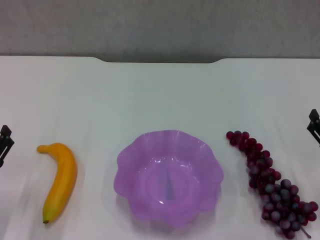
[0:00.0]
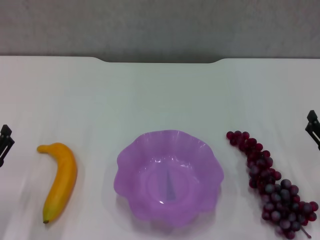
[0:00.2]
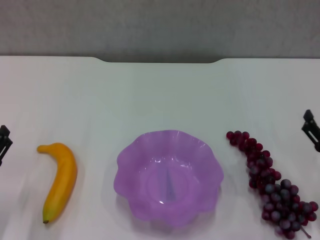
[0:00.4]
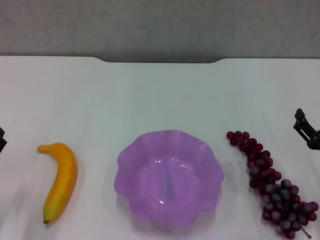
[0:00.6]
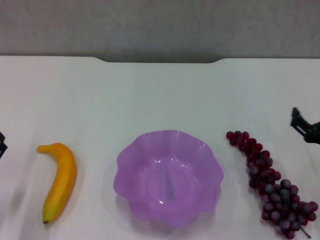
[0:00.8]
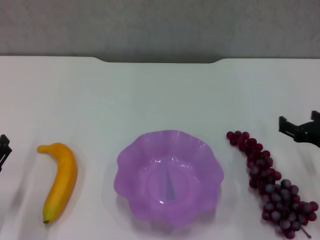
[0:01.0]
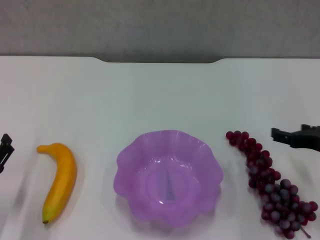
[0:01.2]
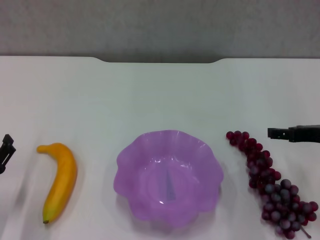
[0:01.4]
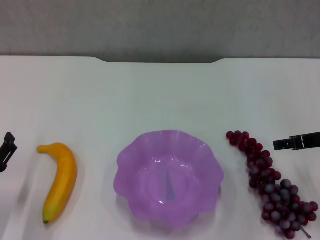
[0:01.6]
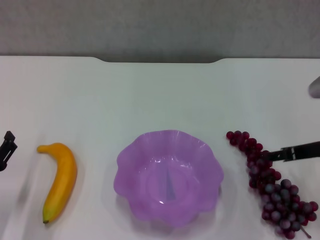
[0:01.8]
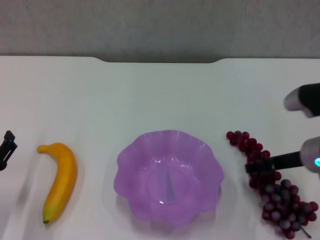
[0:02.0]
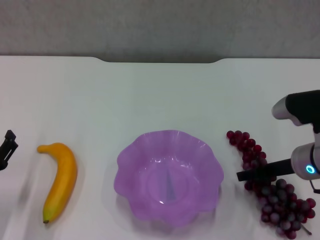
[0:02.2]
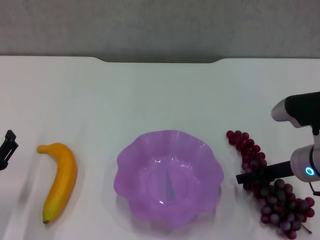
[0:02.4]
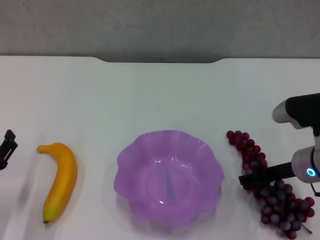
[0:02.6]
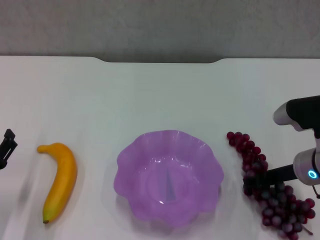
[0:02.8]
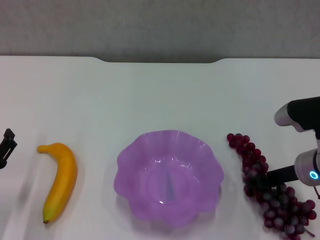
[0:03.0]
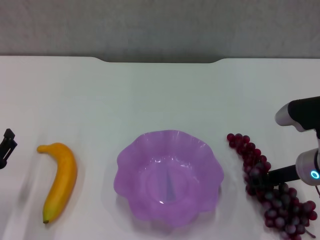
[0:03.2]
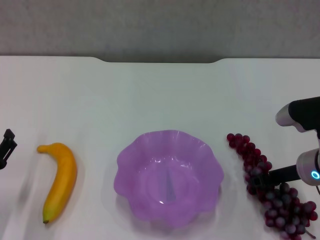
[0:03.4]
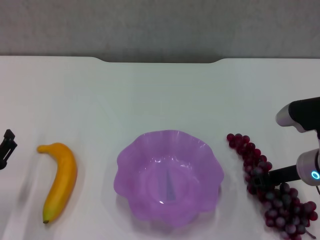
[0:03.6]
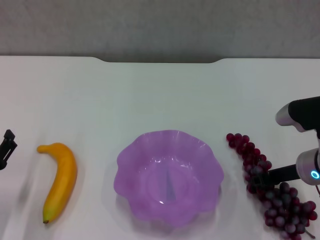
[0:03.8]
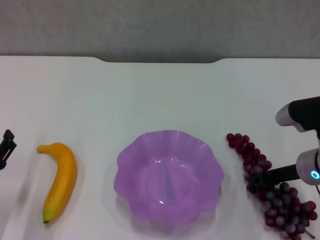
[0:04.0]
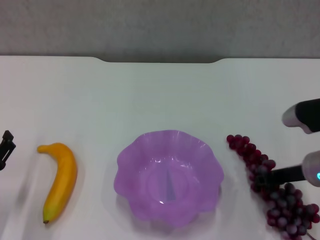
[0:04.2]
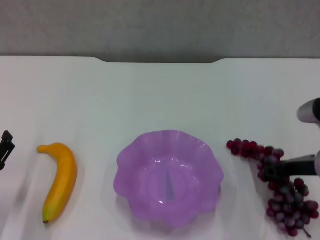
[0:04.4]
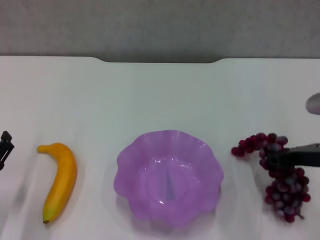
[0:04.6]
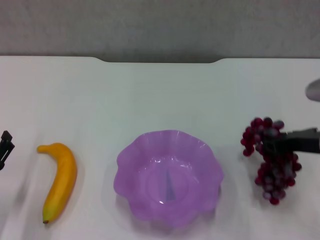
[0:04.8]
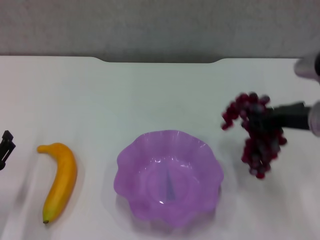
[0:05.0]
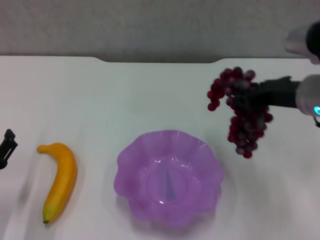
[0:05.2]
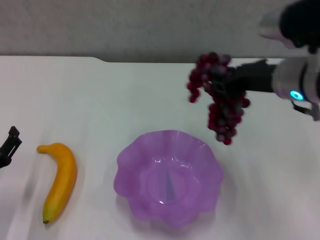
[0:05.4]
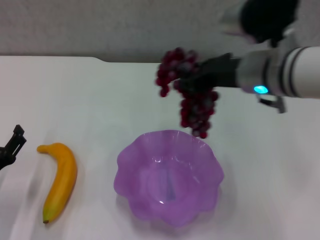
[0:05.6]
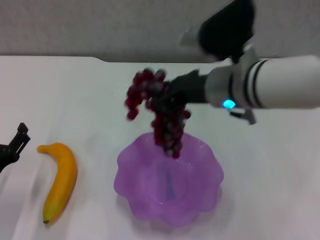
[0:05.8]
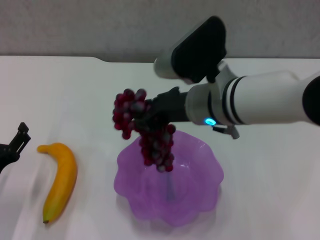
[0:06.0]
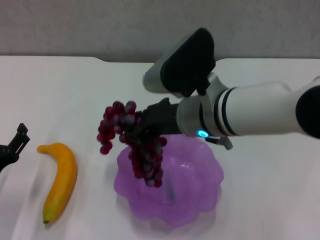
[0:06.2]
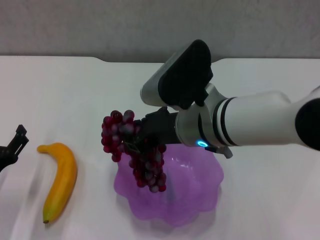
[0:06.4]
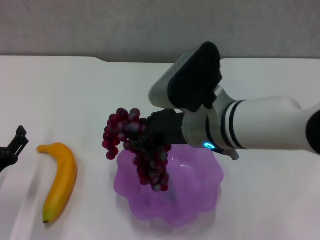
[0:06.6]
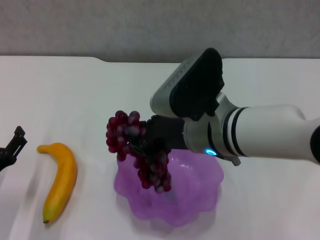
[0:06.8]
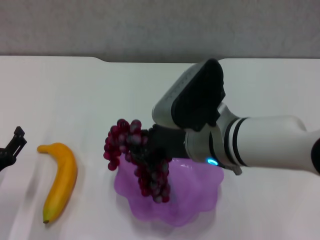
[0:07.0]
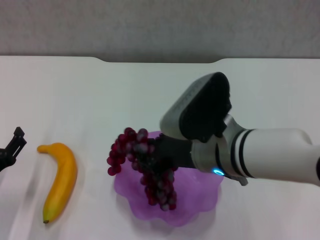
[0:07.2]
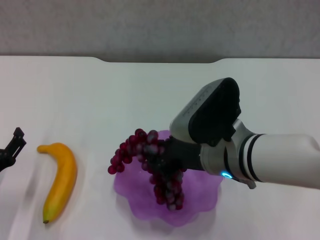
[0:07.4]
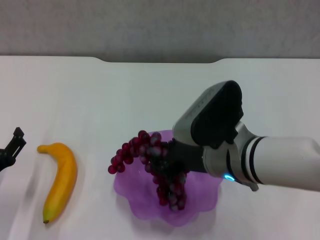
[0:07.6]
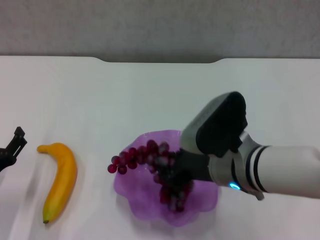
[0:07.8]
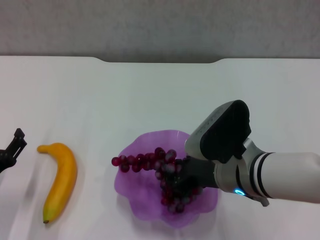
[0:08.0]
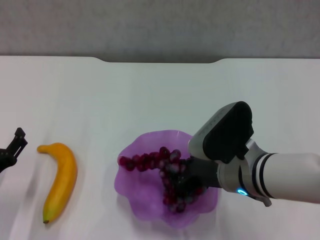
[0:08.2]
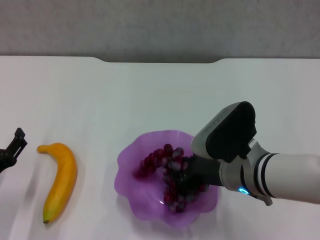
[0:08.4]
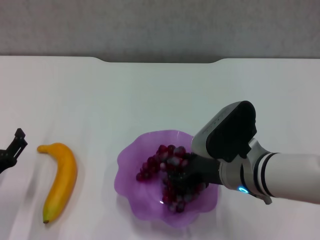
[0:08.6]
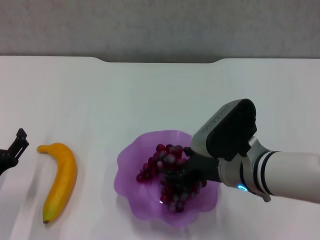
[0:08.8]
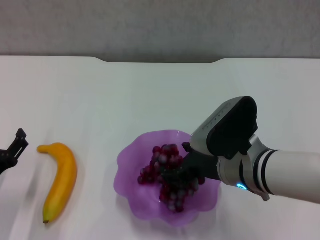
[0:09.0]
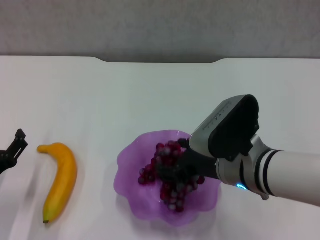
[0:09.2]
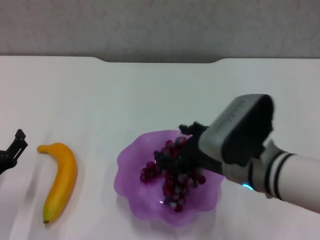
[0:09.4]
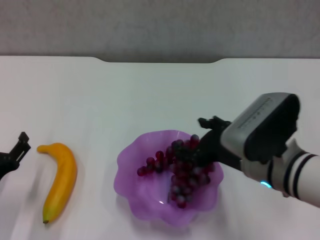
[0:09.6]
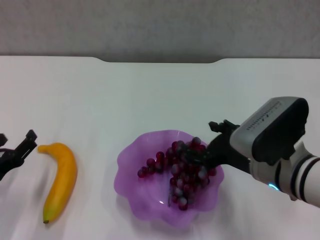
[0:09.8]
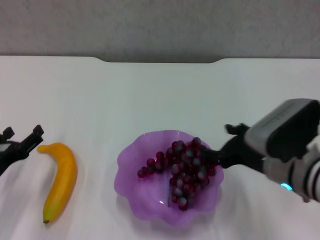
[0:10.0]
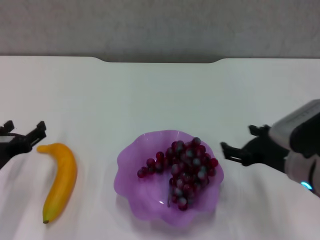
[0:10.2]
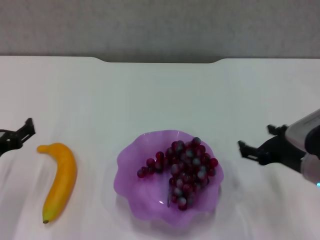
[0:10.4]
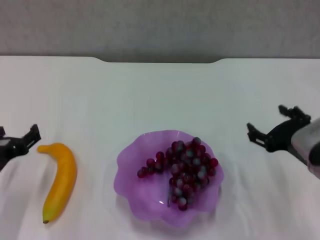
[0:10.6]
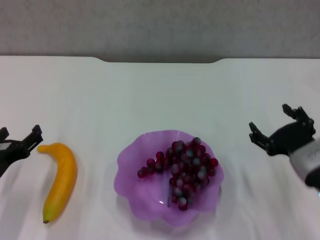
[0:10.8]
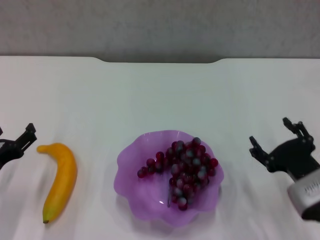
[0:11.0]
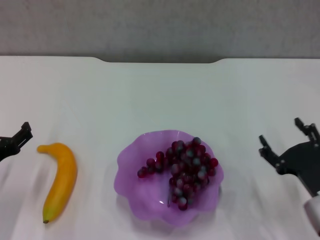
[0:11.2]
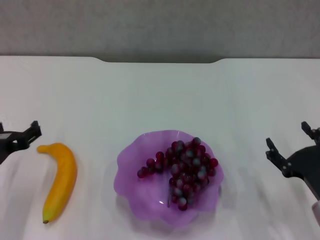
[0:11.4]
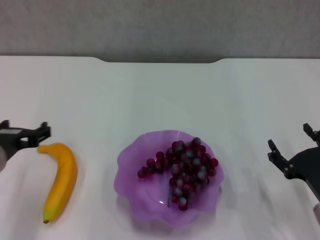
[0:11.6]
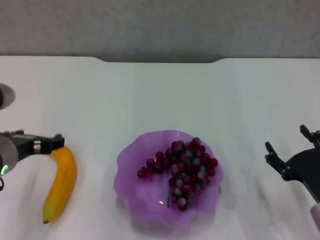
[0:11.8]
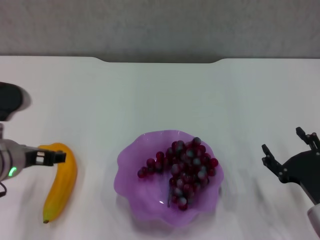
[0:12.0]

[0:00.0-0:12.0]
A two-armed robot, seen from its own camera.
Step, 0.0 to 3.8 s: Grasp the grape with right gripper.
Step, 4.0 to 10.0 s: Place the grape in the purple plate with right gripper.
0.0 to 1.6 s: The right gripper moves upward and forward, approximately 15 cm.
1.6 to 3.0 s: The right gripper is displaced downward by approximately 5 cm.
3.0 to 4.4 s: The right gripper closes up.
4.4 to 6.0 s: The right gripper shifts about 20 cm to the left and upward.
6.0 to 7.6 s: The right gripper goes about 5 cm backward.
7.6 to 9.0 s: The right gripper opens up.
9.0 to 10.4 s: The left gripper travels upward by approximately 5 cm; the right gripper goes approximately 10 cm to the right.
10.4 to 12.0 s: The left gripper goes roughly 10 cm to the right and upward; the right gripper shifts roughly 10 cm downward and backward.

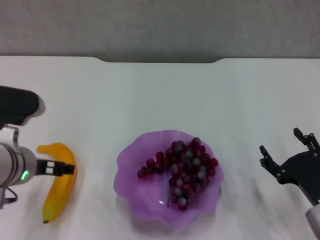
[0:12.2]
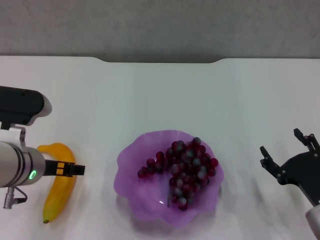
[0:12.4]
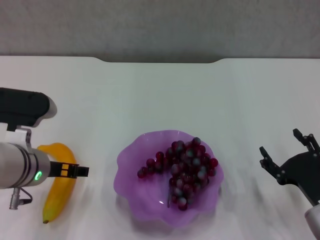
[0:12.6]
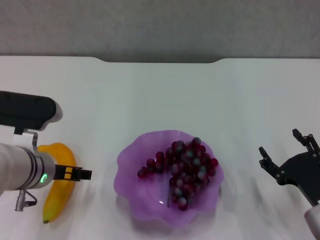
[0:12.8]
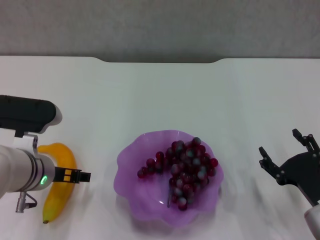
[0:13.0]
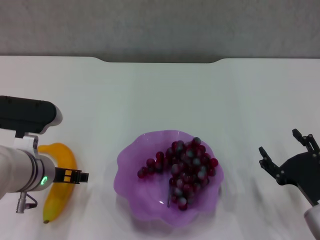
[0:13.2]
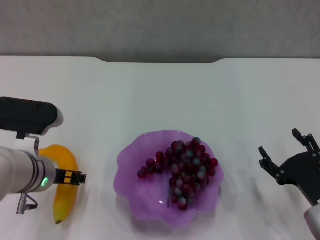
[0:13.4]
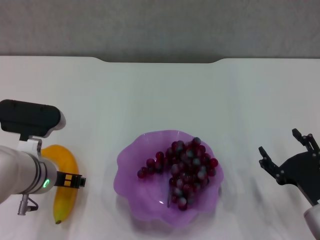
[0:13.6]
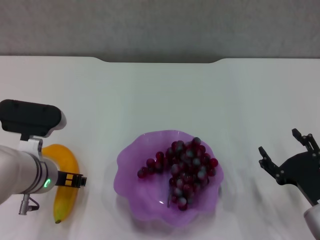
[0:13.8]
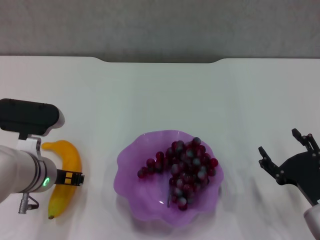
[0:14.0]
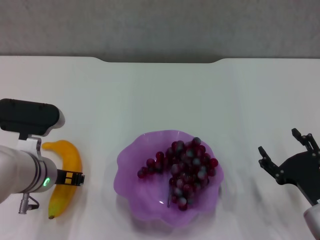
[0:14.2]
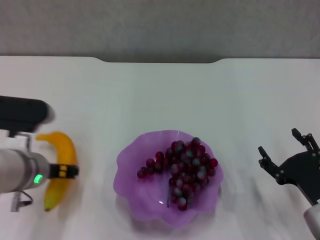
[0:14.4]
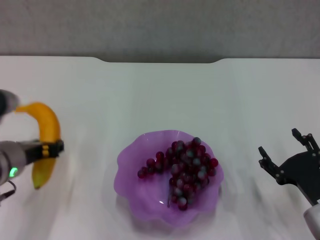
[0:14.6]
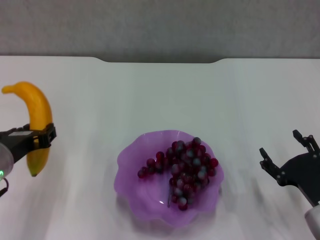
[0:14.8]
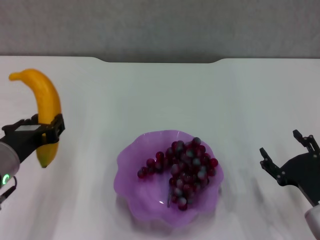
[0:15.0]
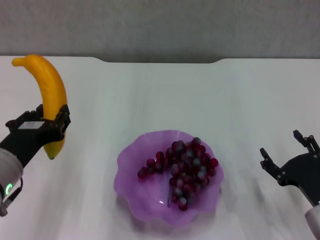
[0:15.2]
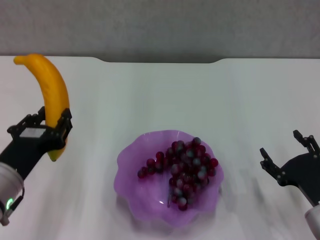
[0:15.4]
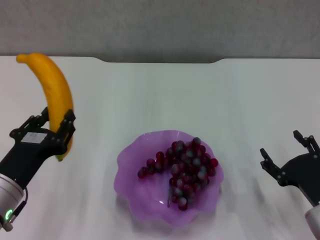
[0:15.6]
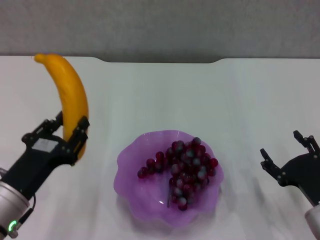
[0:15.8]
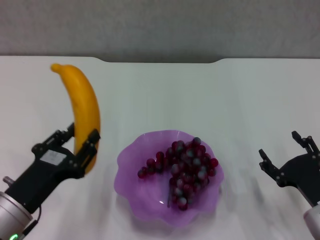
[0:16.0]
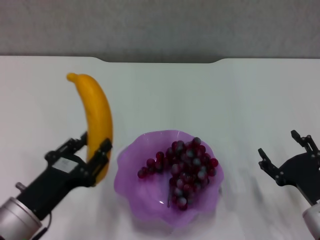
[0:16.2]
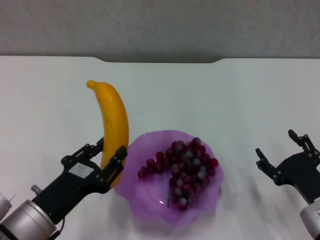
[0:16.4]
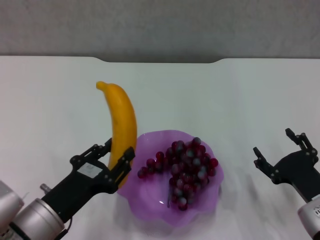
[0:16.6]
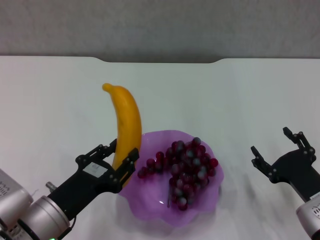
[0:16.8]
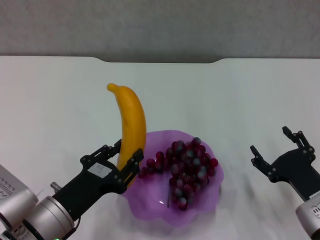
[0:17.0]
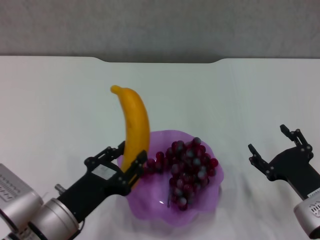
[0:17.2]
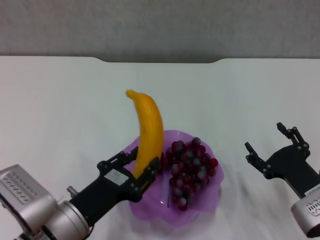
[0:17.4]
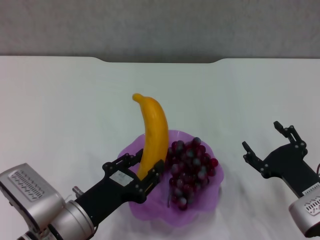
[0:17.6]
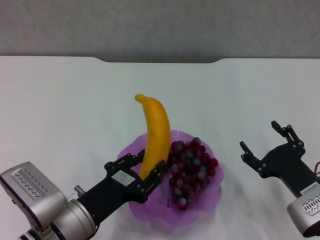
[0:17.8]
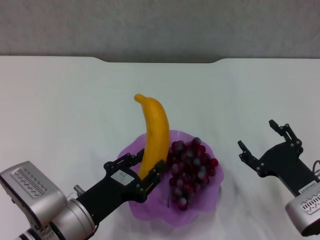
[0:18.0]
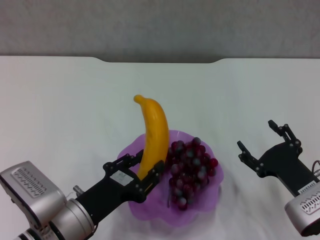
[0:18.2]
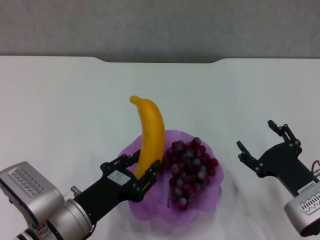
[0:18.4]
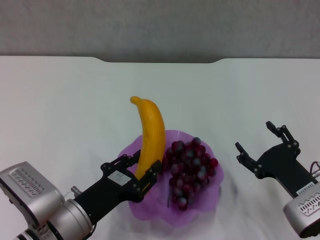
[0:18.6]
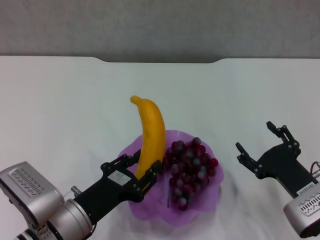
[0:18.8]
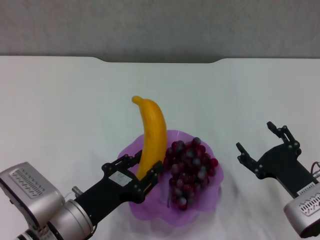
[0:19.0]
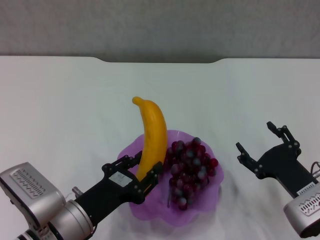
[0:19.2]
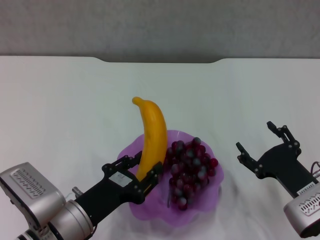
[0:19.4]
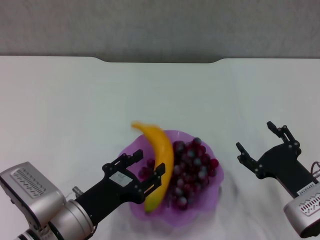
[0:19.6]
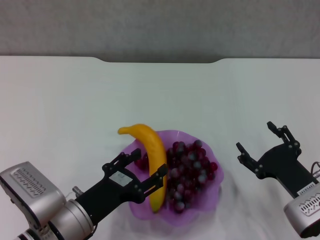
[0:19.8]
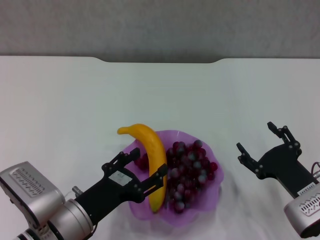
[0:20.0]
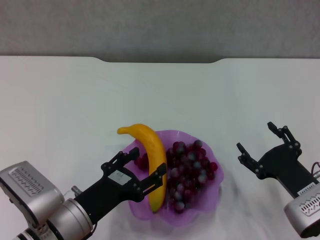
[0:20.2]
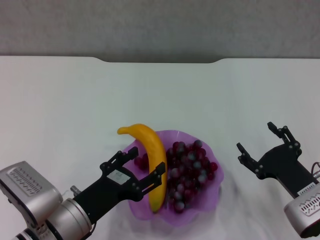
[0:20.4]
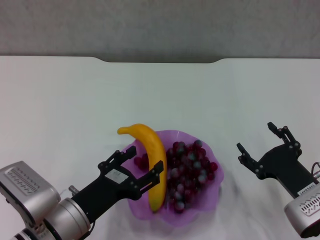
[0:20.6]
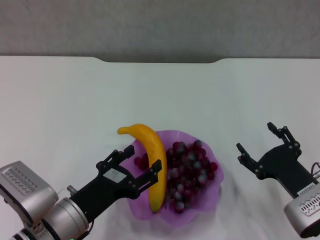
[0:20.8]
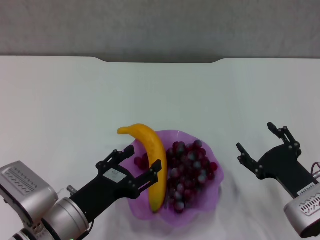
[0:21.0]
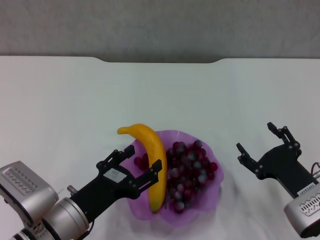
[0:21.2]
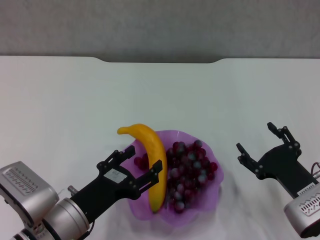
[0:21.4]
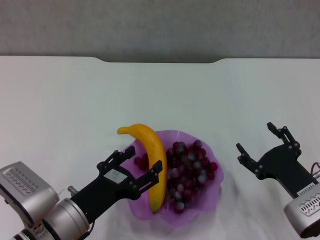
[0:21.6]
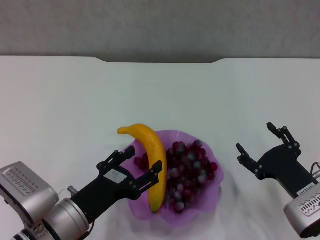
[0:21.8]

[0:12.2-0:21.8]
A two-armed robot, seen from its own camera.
Step, 14.2 to 20.4 s: Place the banana in the purple plate with left gripper.
12.2 to 13.8 s: The left gripper closes.
13.8 to 15.4 s: The left gripper moves backward, about 10 cm.
15.4 to 17.0 s: The left gripper moves downward, roughly 5 cm.
17.0 to 18.6 s: The grippers move only a little.
18.6 to 20.2 s: The left gripper opens.
20.2 to 21.8 s: Both grippers stay put.

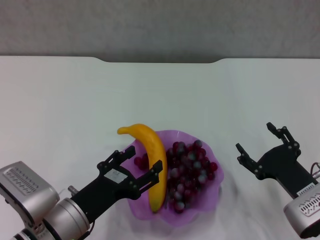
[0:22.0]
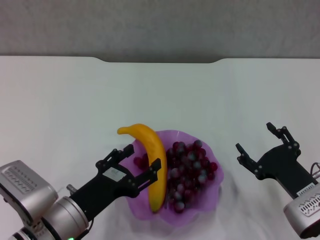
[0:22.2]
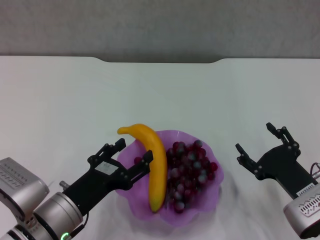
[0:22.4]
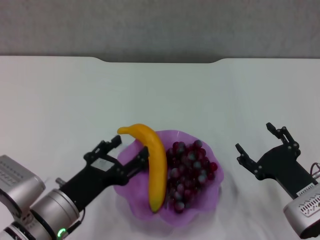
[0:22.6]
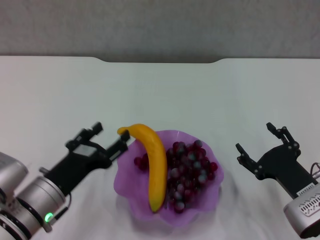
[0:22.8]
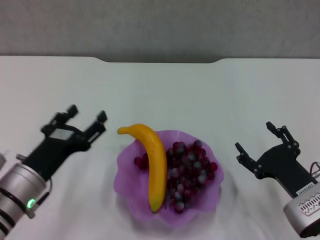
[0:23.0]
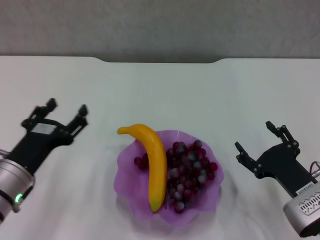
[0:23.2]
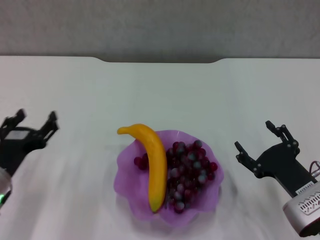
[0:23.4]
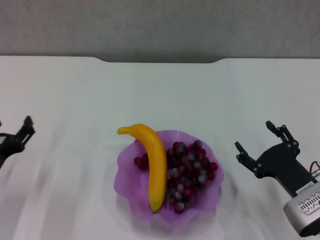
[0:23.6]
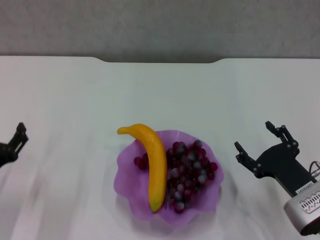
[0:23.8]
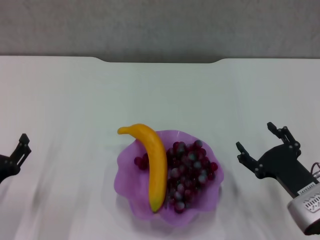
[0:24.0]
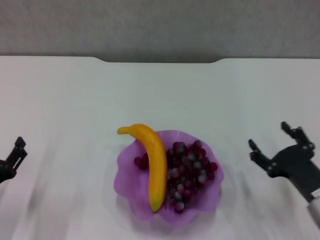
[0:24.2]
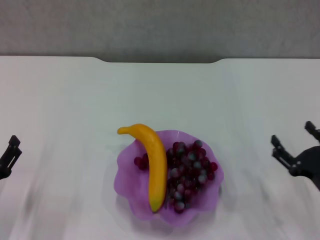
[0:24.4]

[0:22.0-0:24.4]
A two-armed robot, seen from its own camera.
22.0 to 23.2 s: The left gripper heads to the left, covering roughly 5 cm.
23.2 to 24.4 s: The left gripper is displaced to the left and backward by approximately 10 cm. The right gripper moves roughly 5 cm.
